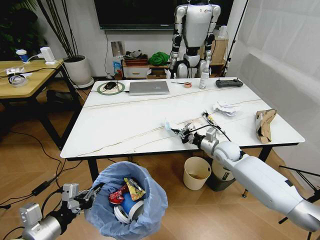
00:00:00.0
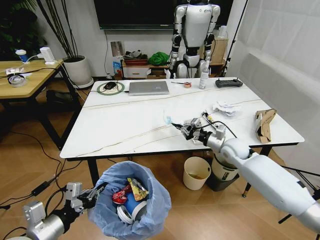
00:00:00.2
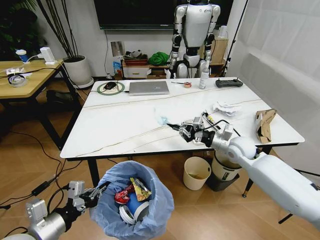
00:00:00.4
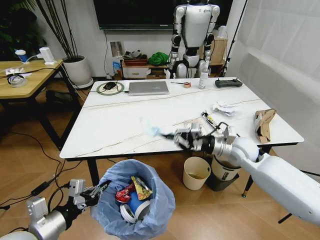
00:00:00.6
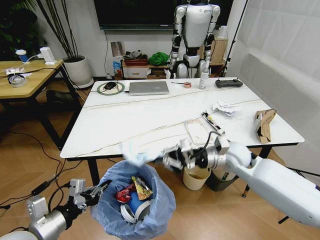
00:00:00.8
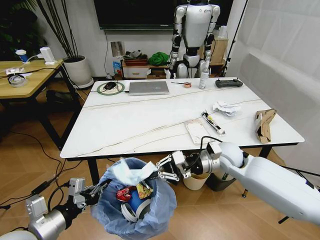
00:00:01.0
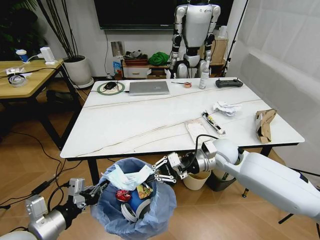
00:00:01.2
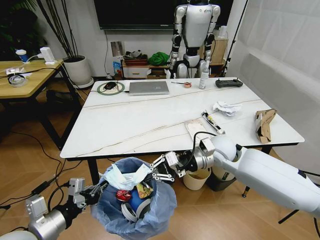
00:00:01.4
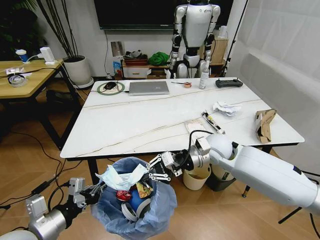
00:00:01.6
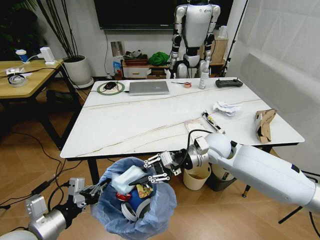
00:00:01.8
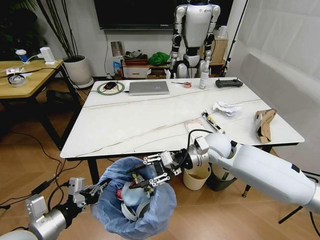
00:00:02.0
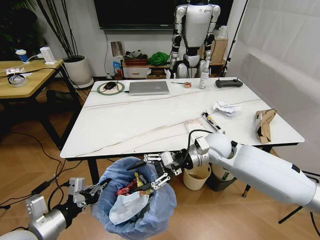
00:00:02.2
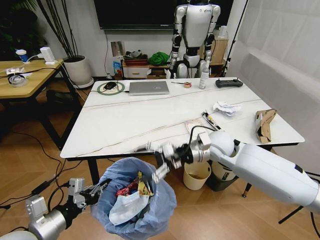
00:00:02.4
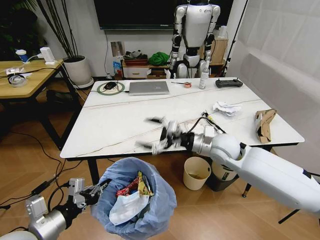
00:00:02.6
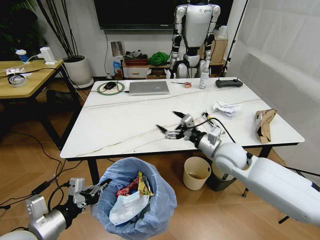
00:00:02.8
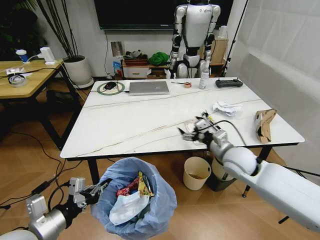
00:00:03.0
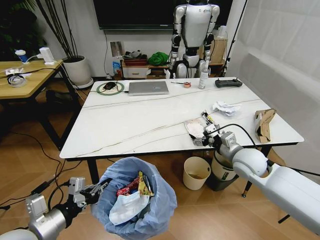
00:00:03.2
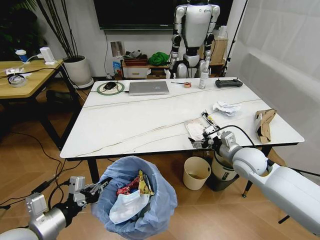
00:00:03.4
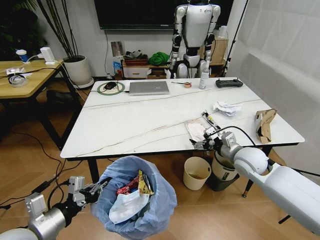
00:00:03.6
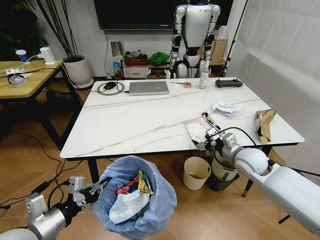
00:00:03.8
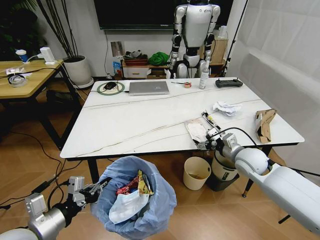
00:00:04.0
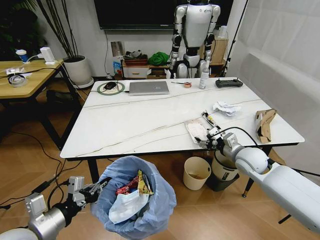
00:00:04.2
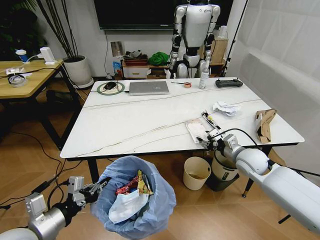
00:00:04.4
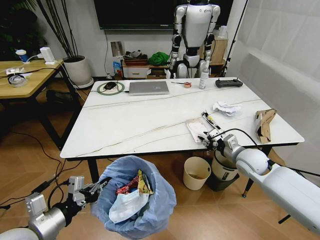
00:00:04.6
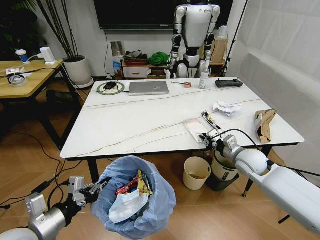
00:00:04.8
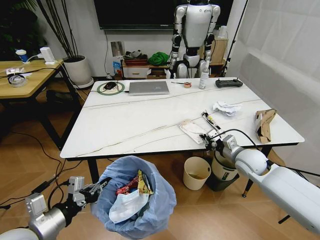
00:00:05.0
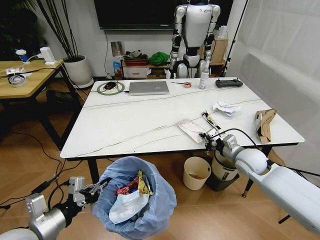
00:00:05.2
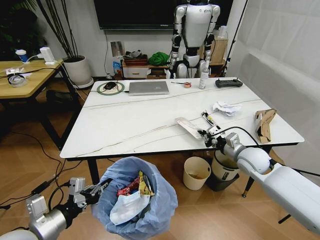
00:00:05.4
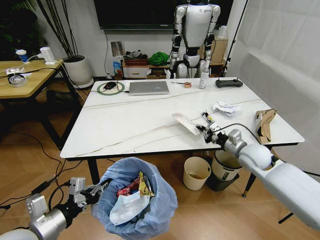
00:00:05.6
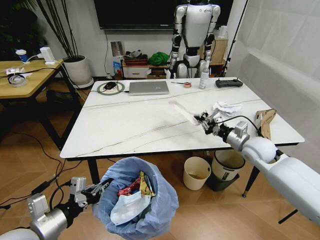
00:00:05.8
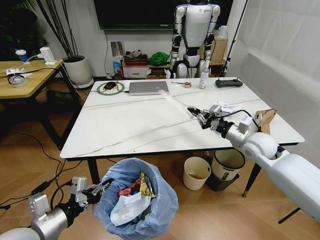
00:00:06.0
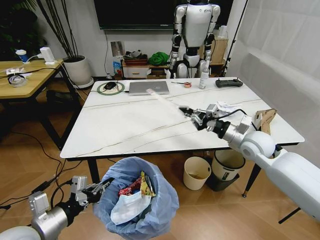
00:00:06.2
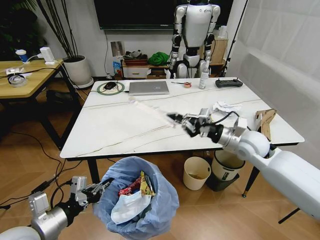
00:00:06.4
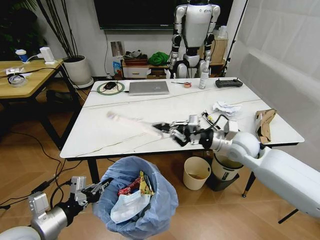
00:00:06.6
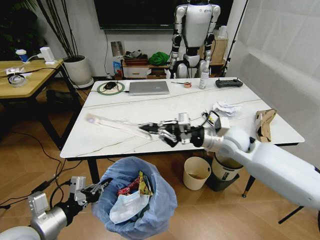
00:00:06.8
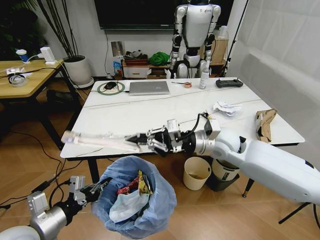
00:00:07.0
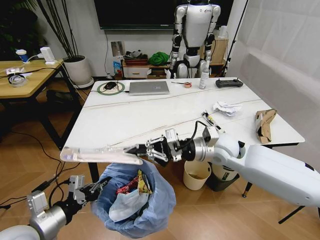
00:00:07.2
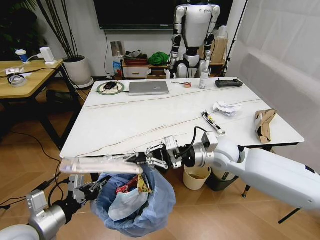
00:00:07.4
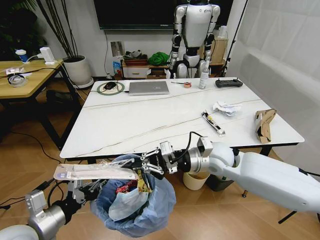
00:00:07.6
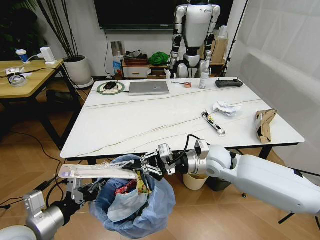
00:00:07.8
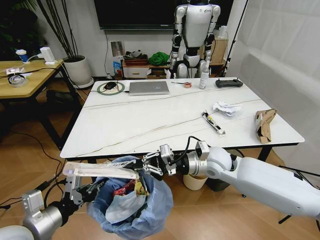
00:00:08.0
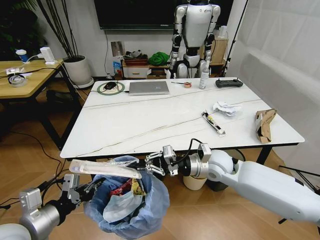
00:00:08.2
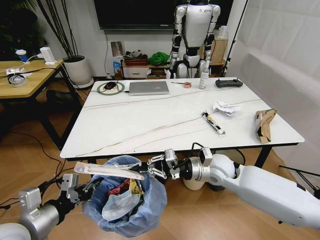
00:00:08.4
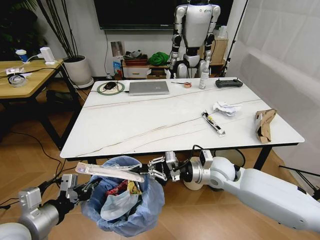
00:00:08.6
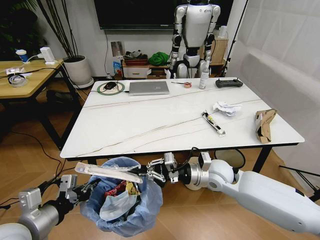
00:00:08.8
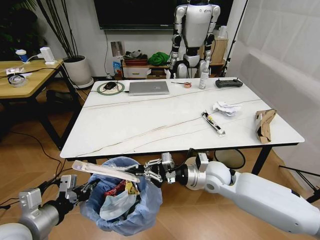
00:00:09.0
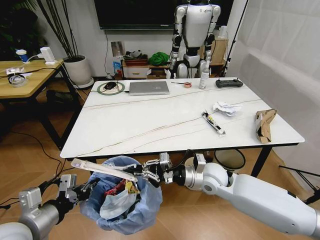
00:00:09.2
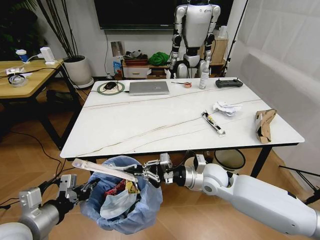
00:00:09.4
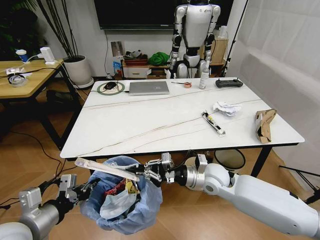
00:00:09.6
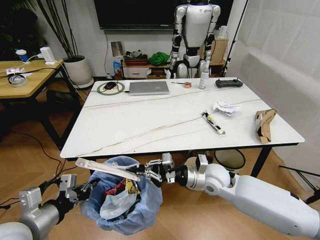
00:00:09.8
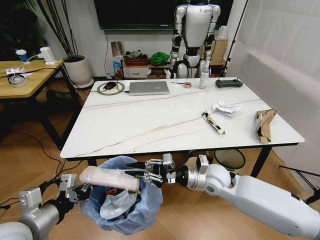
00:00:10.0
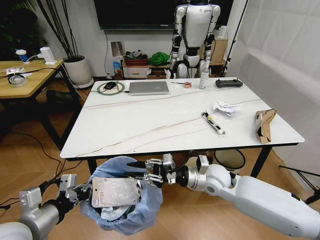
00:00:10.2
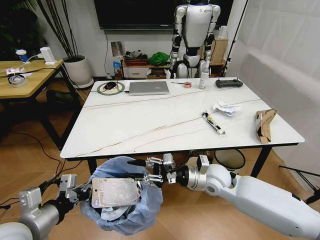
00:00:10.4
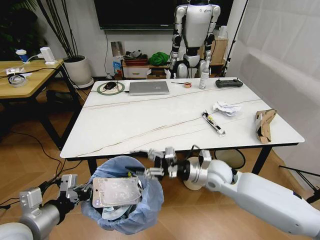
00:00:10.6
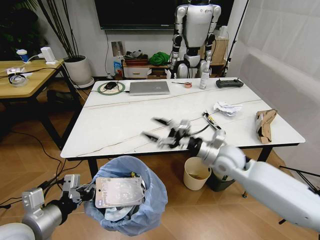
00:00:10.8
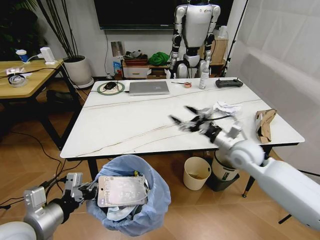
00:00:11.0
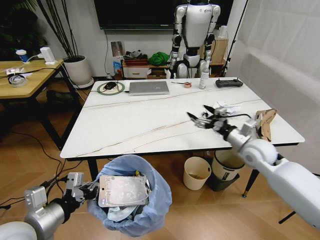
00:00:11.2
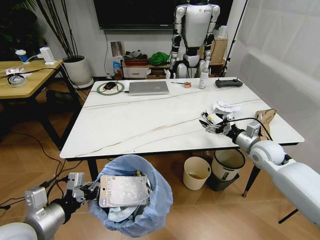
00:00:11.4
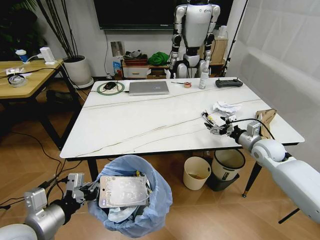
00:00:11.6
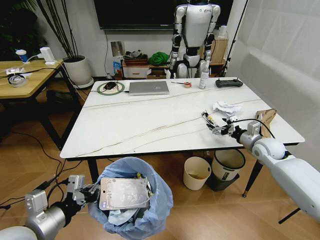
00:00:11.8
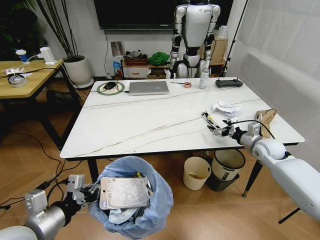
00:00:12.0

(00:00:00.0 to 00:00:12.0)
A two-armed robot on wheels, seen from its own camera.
Task of the whole recording: Pick up the trash bin and place the trash from the table into it.
00:00:00.0 - 00:00:01.6: The right gripper moves upward, to the left and backward, some 15 cm.
00:00:01.6 - 00:00:03.0: The right gripper is displaced to the right by some 5 cm, and opens up.
00:00:03.0 - 00:00:04.4: The right gripper heads to the right, covering about 10 cm, and closes up.
00:00:04.4 - 00:00:06.0: The right gripper moves upward, some 5 cm, and closes its fingers.
00:00:06.0 - 00:00:07.6: The right gripper shifts some 15 cm to the left.
00:00:07.6 - 00:00:09.0: The right gripper heads downward, covering approximately 5 cm.
00:00:09.0 - 00:00:10.4: The right gripper opens its fingers.
00:00:10.4 - 00:00:12.0: The right gripper heads to the right and forward, covering roughly 25 cm, and opens.

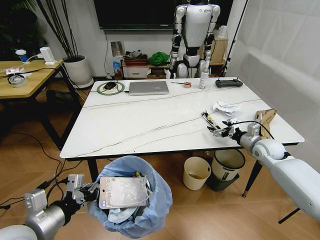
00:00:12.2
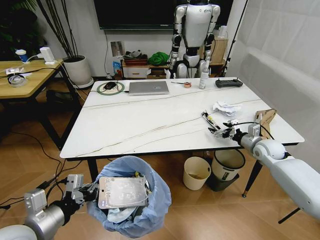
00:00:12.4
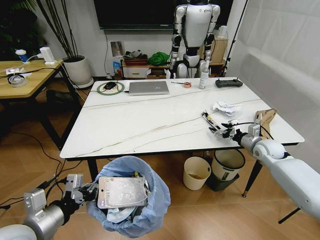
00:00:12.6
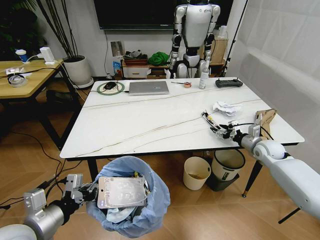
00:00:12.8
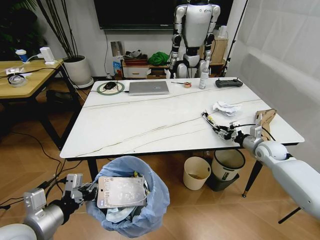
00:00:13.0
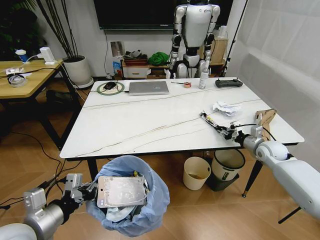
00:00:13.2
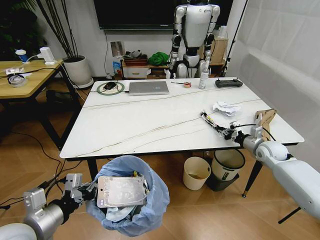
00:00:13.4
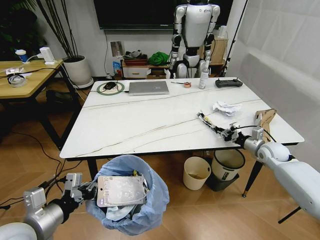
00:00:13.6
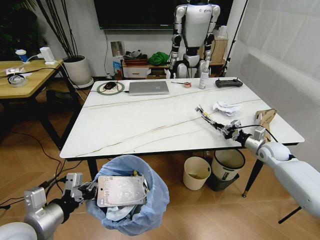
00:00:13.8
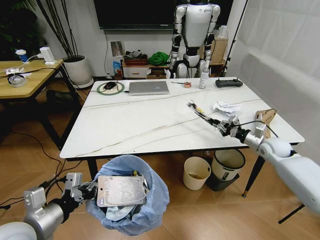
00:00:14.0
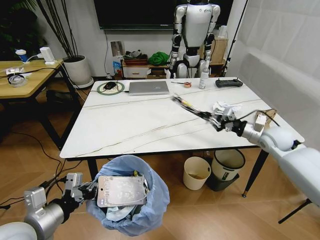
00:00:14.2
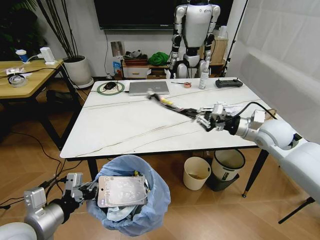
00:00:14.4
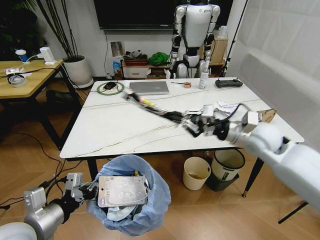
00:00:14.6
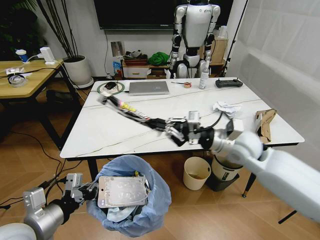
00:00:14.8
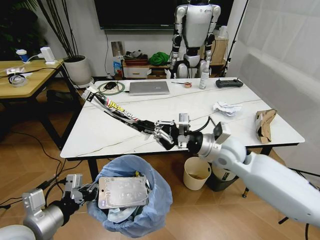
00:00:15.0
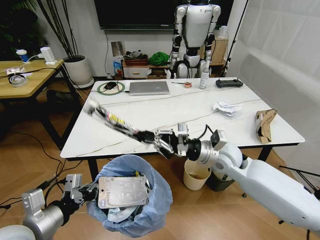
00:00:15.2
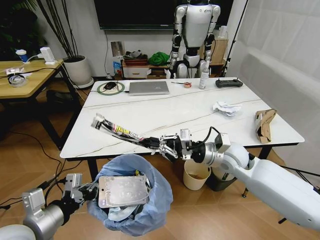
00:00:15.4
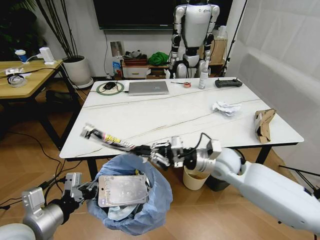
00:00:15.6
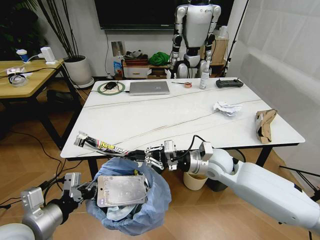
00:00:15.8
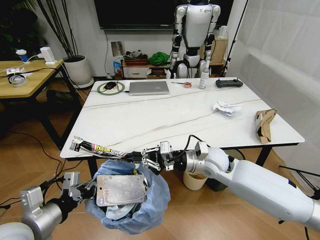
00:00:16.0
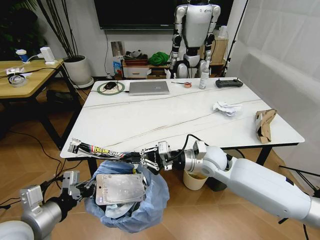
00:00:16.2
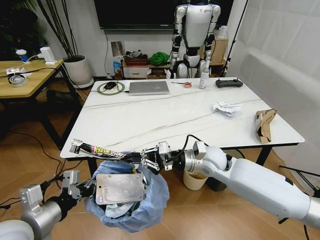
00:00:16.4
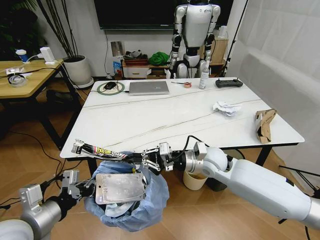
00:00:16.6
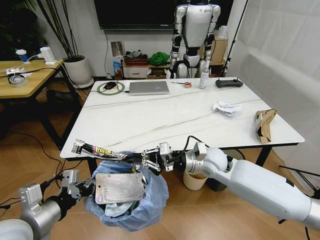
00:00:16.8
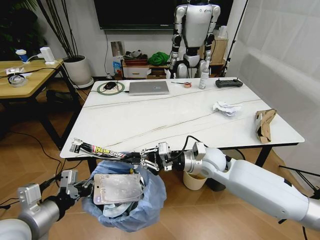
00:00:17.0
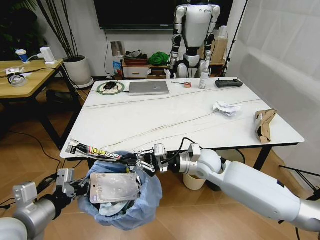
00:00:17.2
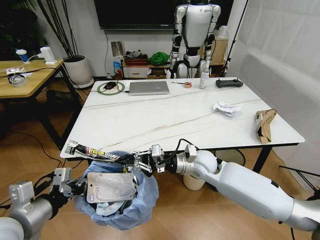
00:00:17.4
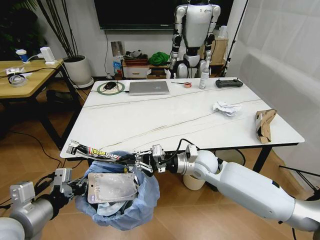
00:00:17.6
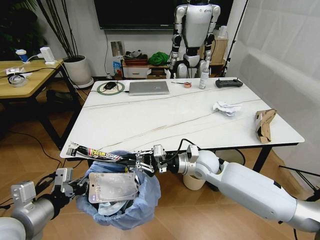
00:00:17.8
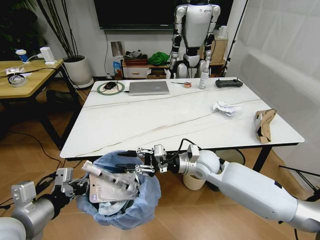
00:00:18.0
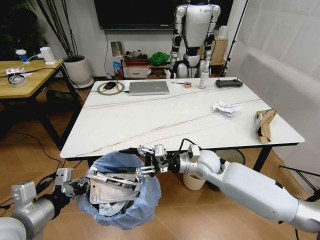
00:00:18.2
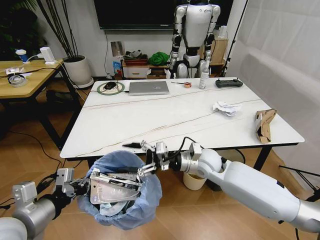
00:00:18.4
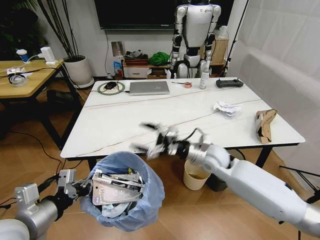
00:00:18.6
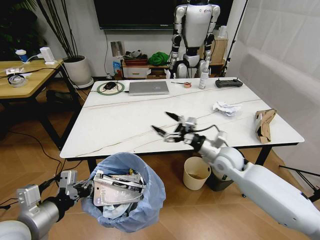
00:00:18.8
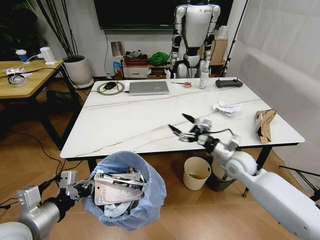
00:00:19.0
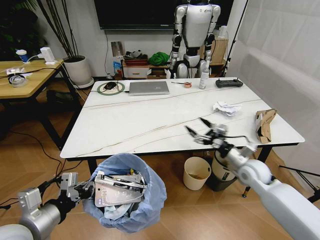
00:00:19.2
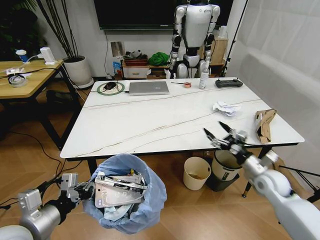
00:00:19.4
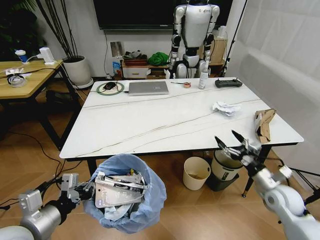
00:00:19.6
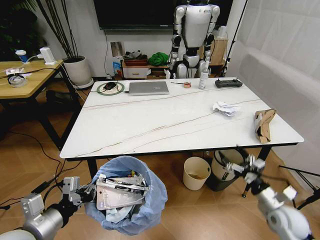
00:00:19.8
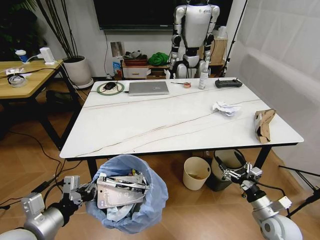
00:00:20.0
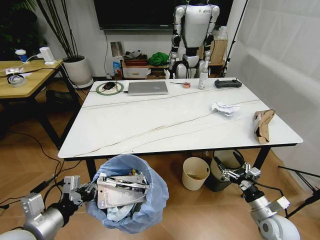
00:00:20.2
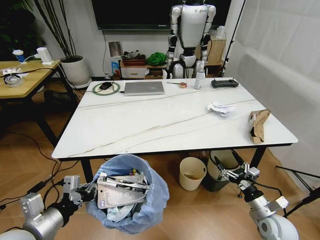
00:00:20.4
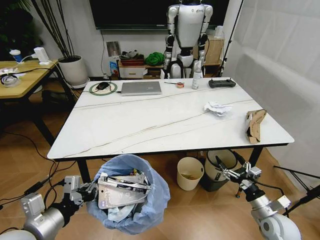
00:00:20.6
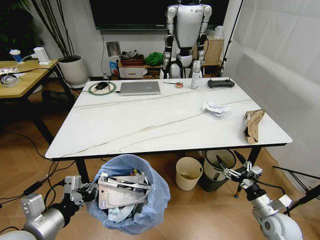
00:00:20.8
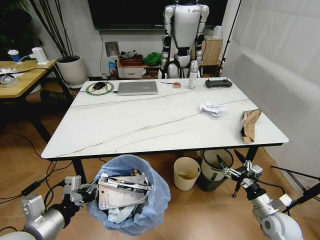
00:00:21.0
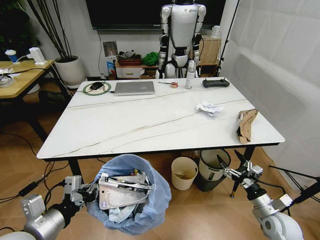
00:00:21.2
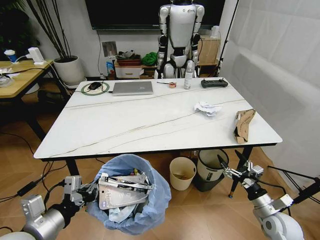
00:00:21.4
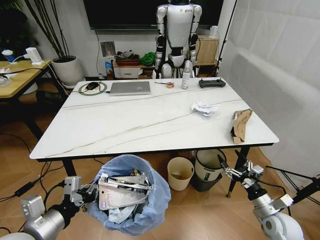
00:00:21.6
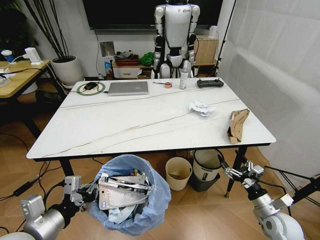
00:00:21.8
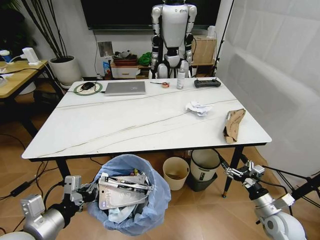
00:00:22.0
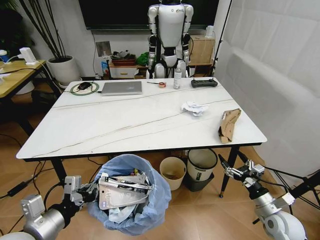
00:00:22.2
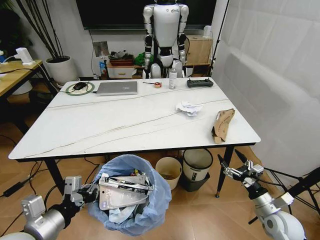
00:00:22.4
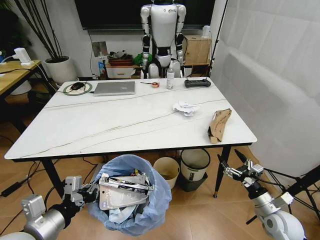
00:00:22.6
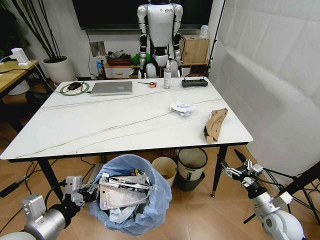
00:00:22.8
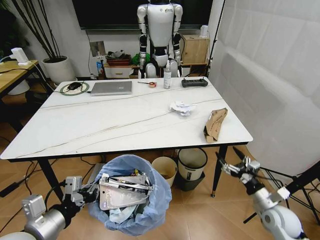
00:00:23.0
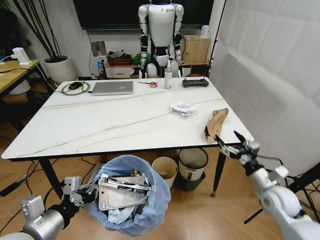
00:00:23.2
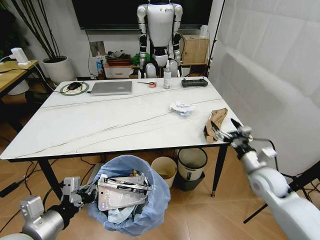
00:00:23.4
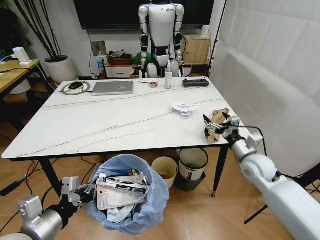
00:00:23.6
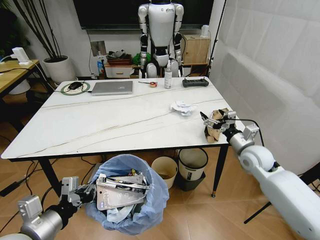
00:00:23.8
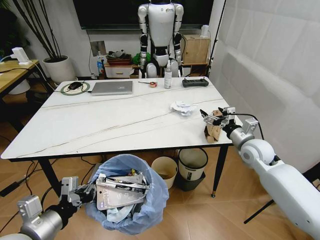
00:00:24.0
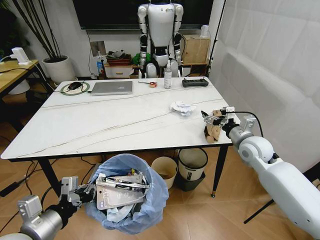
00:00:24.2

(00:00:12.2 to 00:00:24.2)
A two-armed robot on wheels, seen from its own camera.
Task of the whole recording: Pick up the trash bin and place the trash from the table into it.
00:00:12.2 - 00:00:13.8: The right gripper shifts by roughly 5 cm, and closes.
00:00:13.8 - 00:00:15.2: The right gripper heads to the left, covering about 25 cm.
00:00:15.2 - 00:00:16.6: There are only small adjustments of the grippers.
00:00:16.6 - 00:00:18.2: The right gripper opens.
00:00:18.2 - 00:00:19.8: The right gripper is displaced to the right, backward and downward by approximately 30 cm, and opens up.
00:00:22.6 - 00:00:24.2: The right gripper heads forward, upward and to the left, covering approximately 25 cm.
